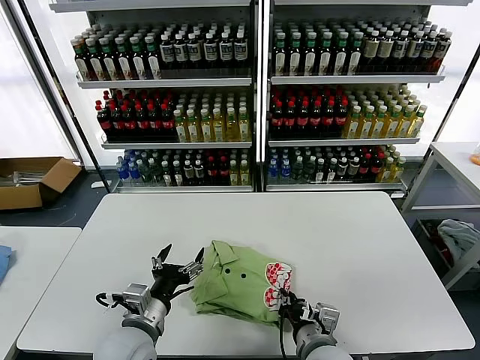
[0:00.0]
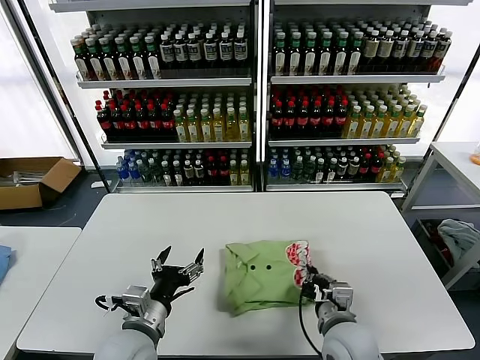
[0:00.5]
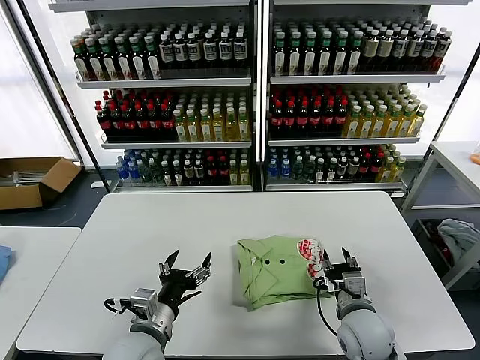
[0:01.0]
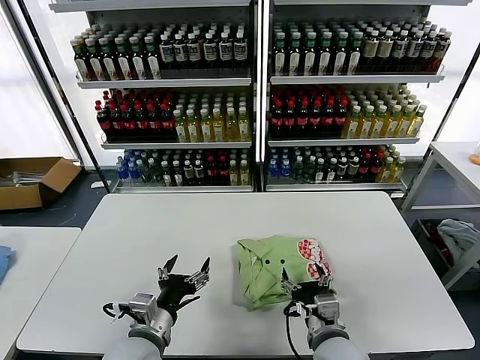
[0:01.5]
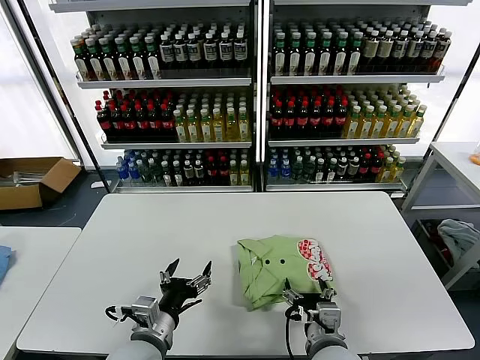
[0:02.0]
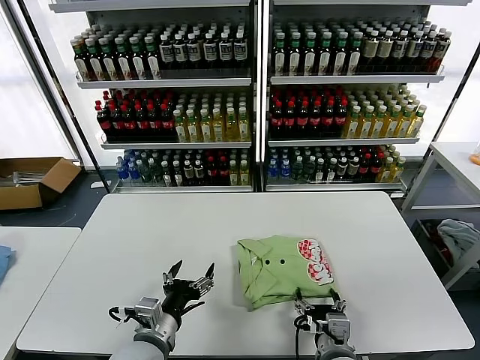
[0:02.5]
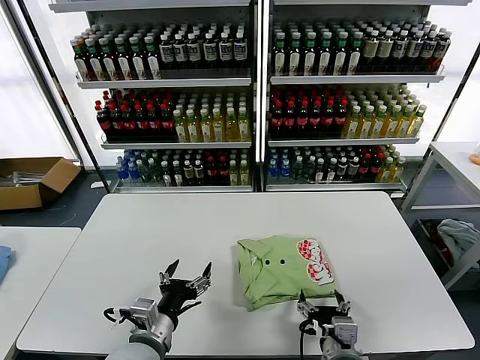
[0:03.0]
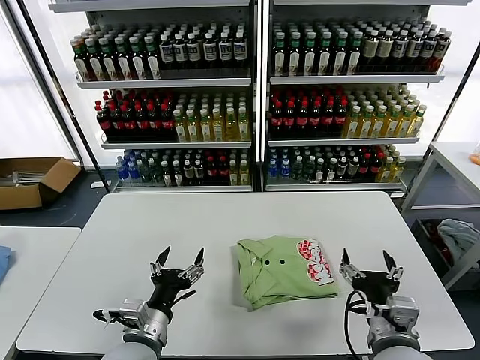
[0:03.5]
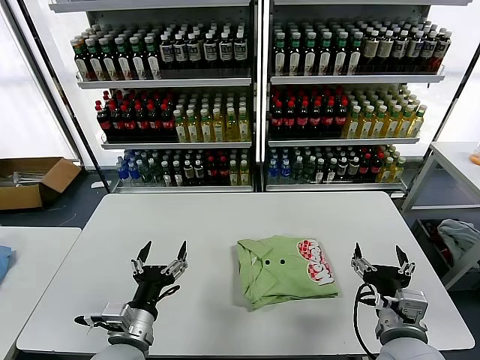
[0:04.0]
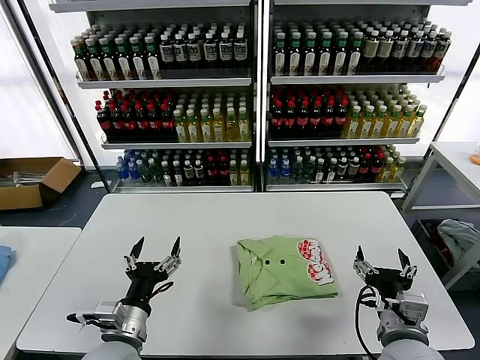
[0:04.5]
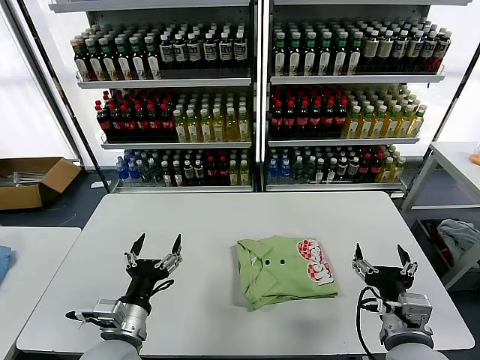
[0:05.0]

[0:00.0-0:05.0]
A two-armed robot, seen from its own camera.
Task of the whole recording: fold and organize the clothes.
Step, 0:00.0 to 0:02.5: Drag the clothes to the center of the table.
0:00.0 to 0:02.5: The right gripper goes to the right and returns, some 10 cm each way, and opens its fingers.
0:02.5 to 0:05.0: The right gripper heads to the right and upward, covering some 10 cm.

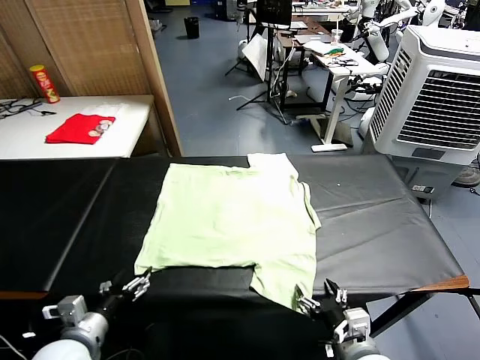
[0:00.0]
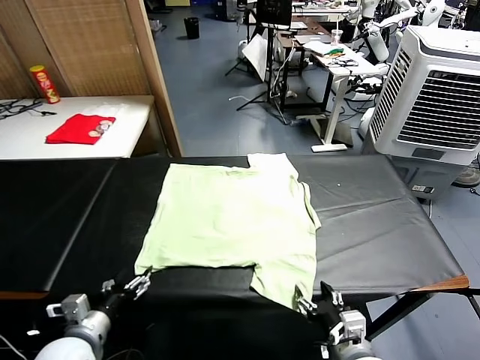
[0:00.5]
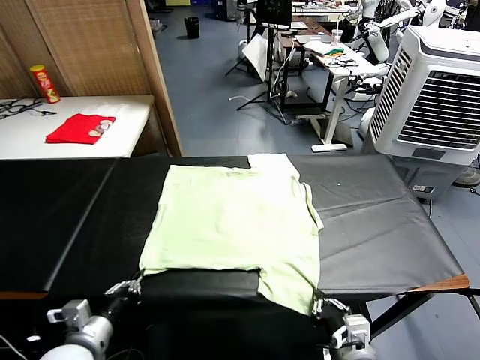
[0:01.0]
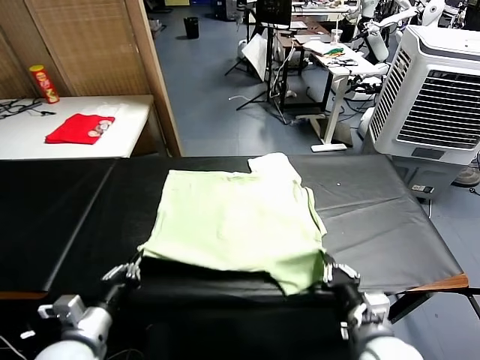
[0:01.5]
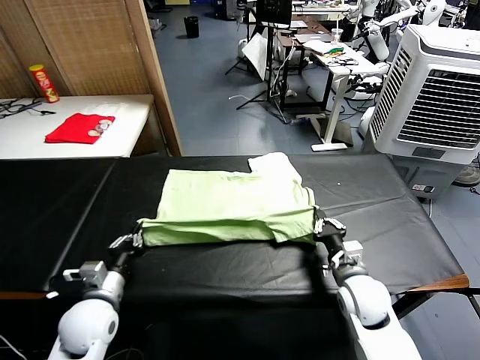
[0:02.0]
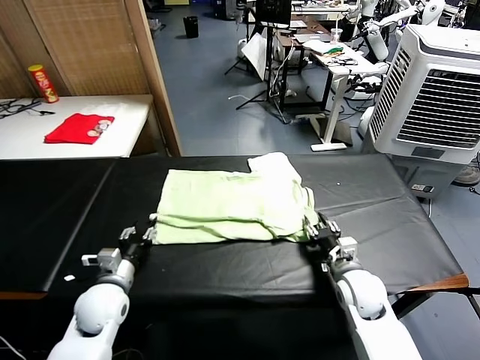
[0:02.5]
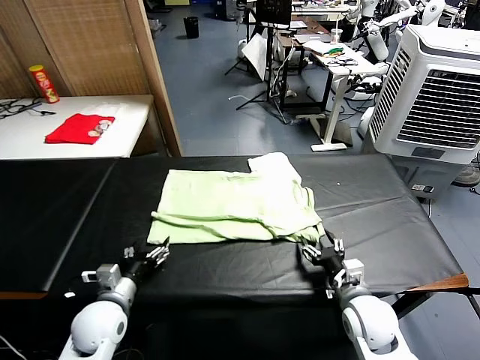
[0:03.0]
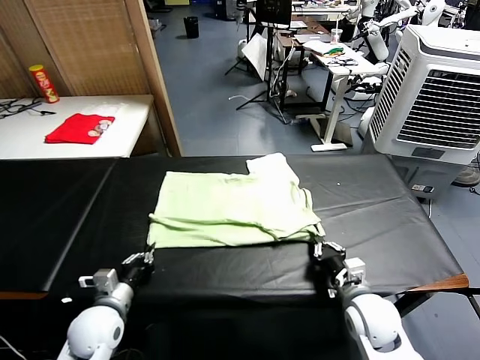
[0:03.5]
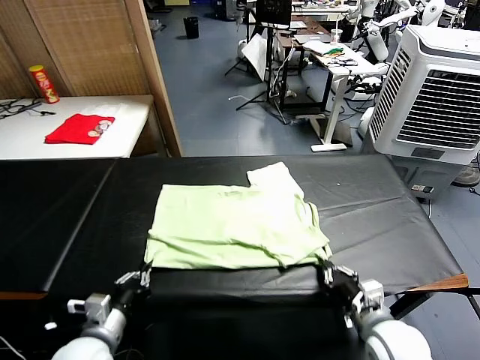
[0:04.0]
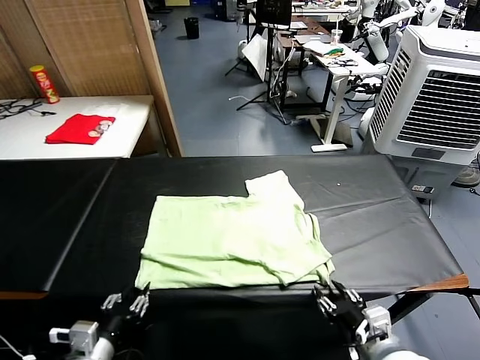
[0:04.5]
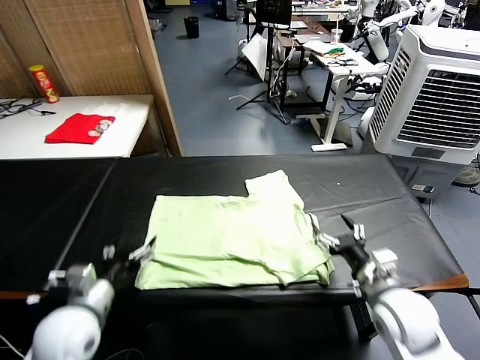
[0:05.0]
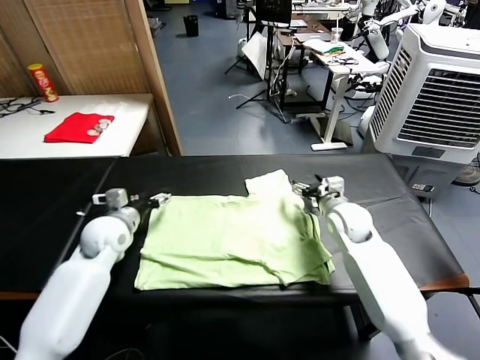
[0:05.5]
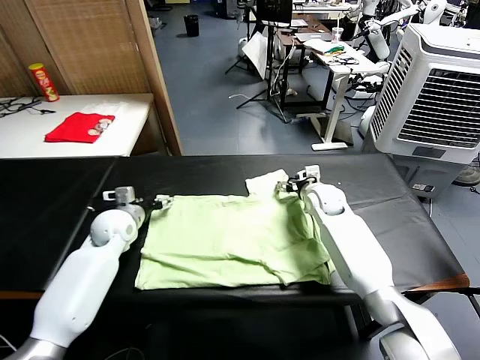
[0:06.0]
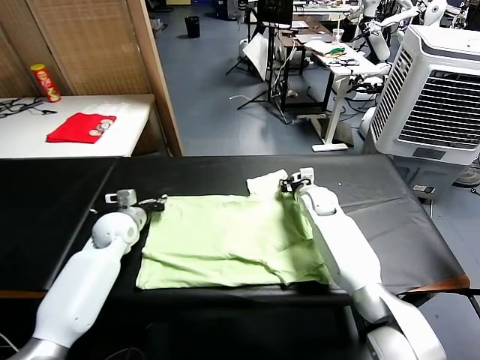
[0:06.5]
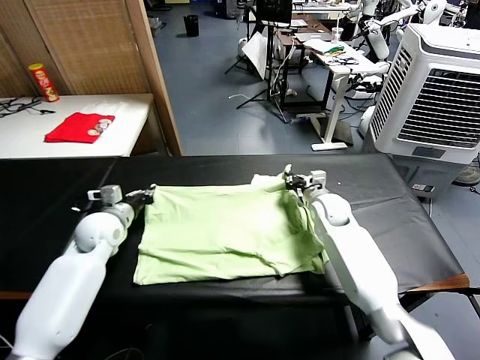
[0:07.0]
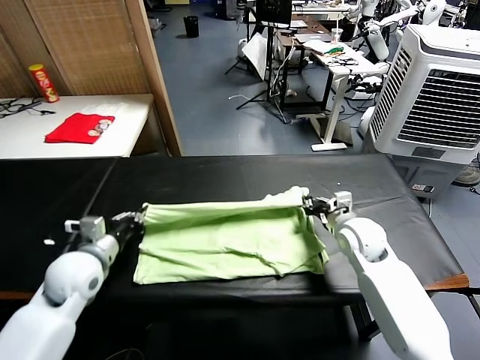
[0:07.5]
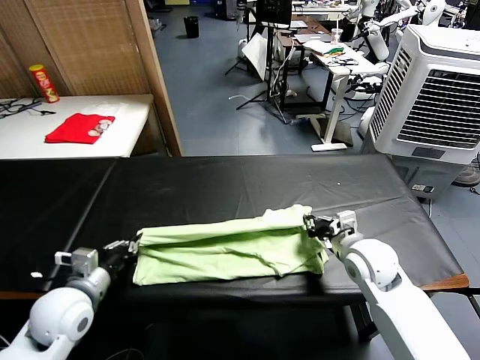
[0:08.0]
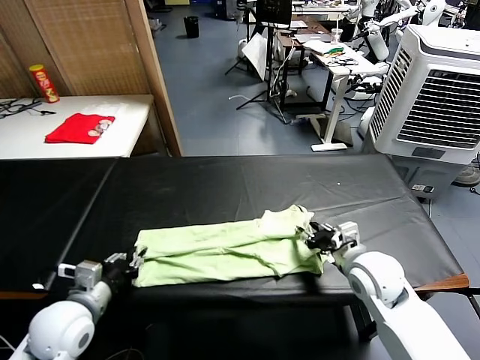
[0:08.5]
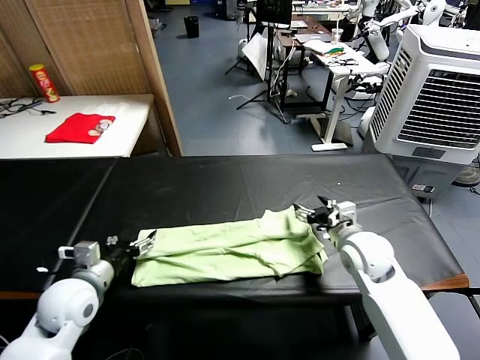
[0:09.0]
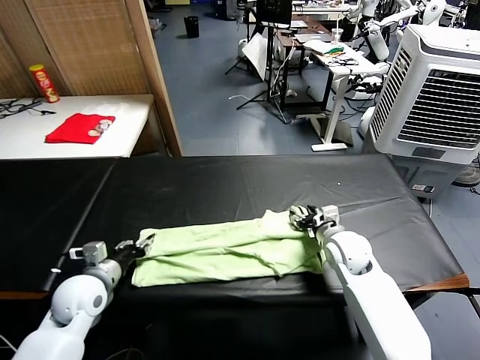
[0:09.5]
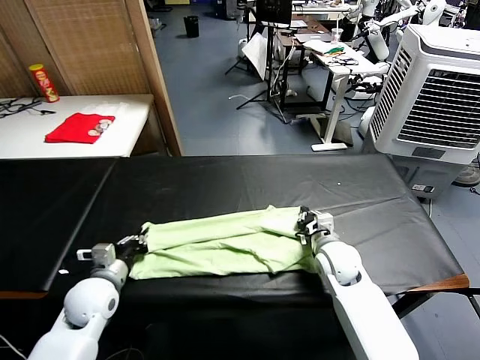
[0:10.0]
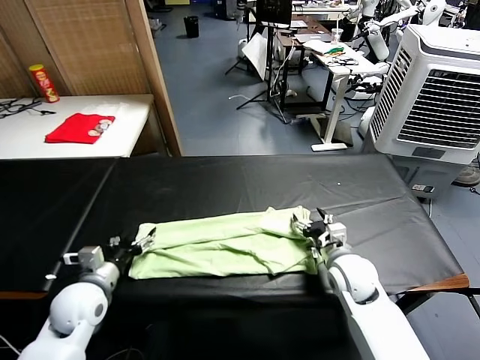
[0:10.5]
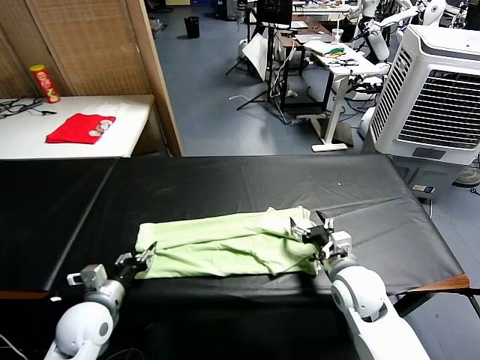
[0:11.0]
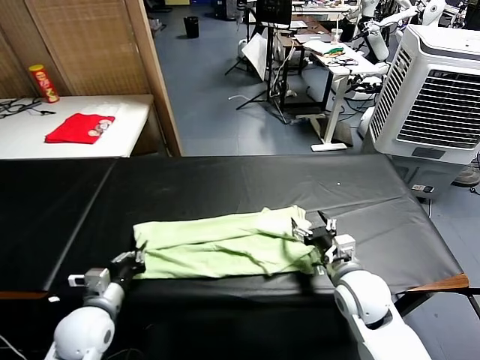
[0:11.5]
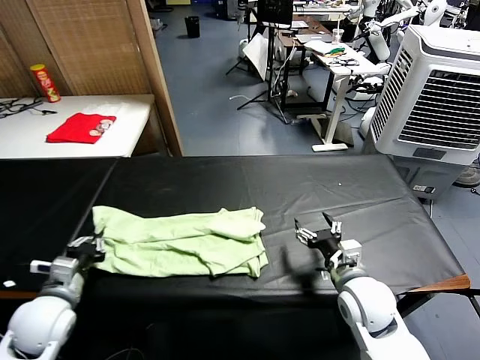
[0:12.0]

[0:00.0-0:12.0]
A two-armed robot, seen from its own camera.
Task of the whole recording: fold and organize the clothes.
Step, 0:00.0 to 0:01.0: use both grippers simultaneously to clamp the lower edge of the clothing fabric.
Step, 0:01.5 to 0:02.5: use both grippers to drag the lower edge of the fabric forward and fold it over the upper edge.
Step, 0:03.0 to 0:04.5: Drag the clothes downward with both gripper.
Step, 0:05.0 to 0:06.5: use both grippers simultaneously to clamp the upper edge of the clothing fabric.
Step, 0:07.0 to 0:08.5: use both grippers to drag the upper edge of the fabric backward and fold it over the lower edge.
Step, 0:09.0 to 0:11.0: use the left gripper to clamp the left edge of the fabric.
0:02.0 to 0:04.0: The right gripper travels backward by roughly 15 cm, and opens, then closes again; the left gripper goes some 10 cm backward, and opens, then closes again.
0:04.0 to 0:06.0: The two grippers go roughly 35 cm forward. The right gripper opens up, while the left gripper opens up.
0:06.0 to 0:08.0: Both grippers move backward, some 20 cm. The left gripper closes up. The right gripper closes up.
0:08.0 to 0:10.0: Both grippers move downward, about 5 cm. The right gripper opens, then closes again. Meanwhile the left gripper opens, then closes once more.
0:10.0 to 0:12.0: The right gripper travels backward by some 10 cm, and opens, while the left gripper travels backward by some 5 cm, and opens, then closes once more.

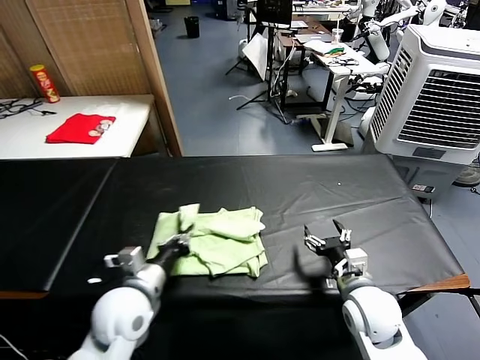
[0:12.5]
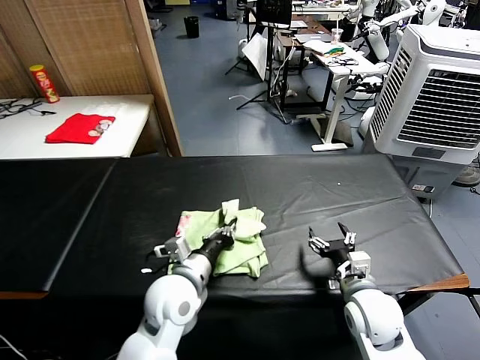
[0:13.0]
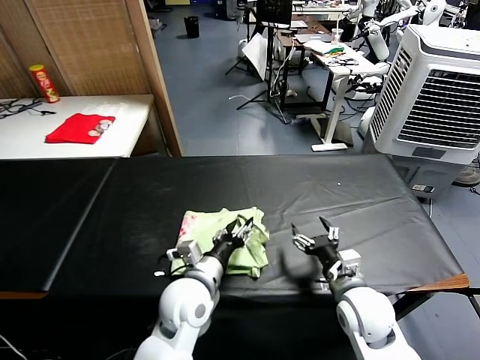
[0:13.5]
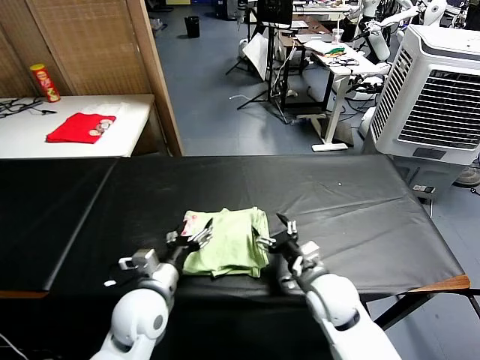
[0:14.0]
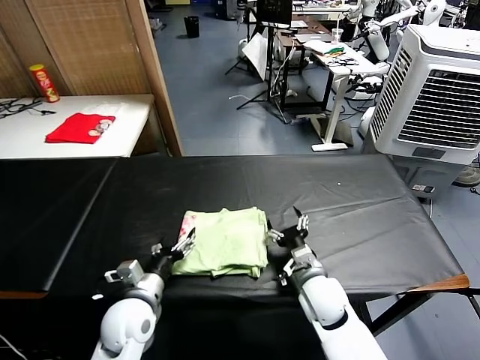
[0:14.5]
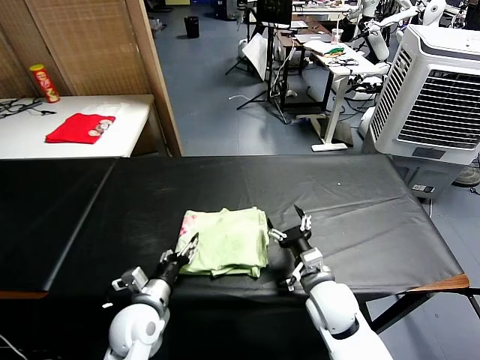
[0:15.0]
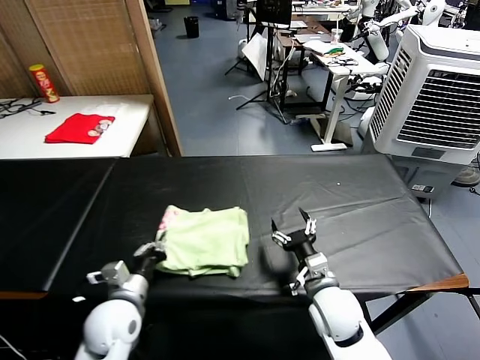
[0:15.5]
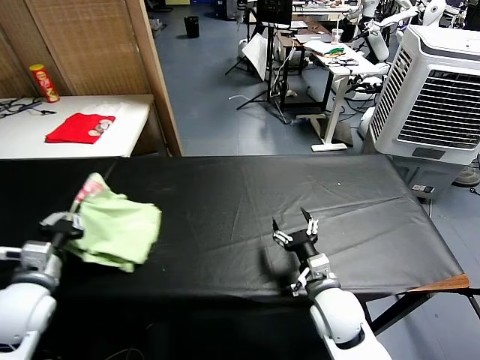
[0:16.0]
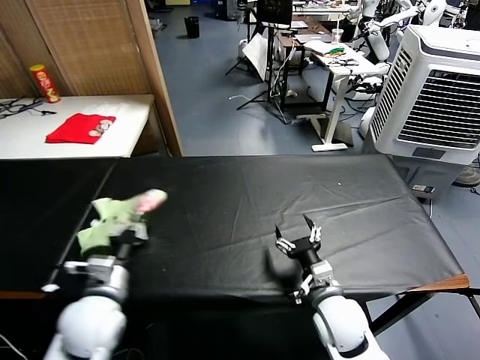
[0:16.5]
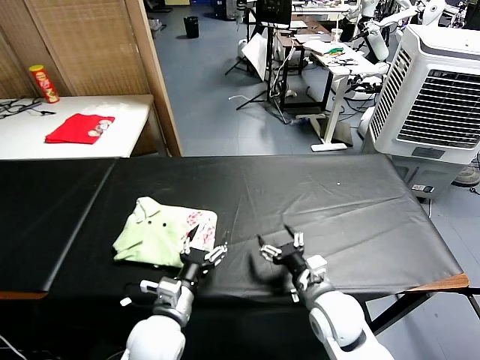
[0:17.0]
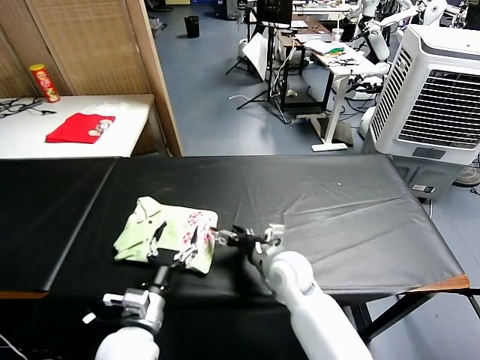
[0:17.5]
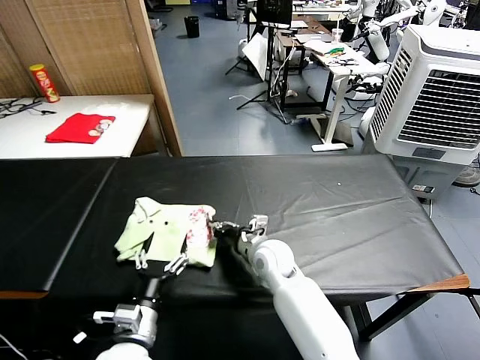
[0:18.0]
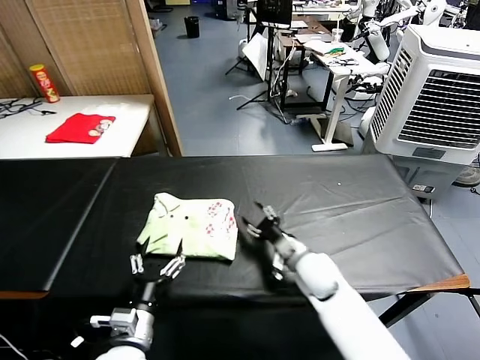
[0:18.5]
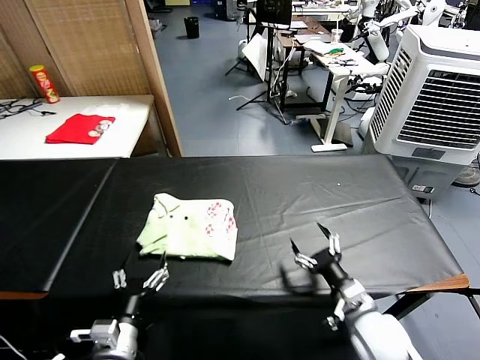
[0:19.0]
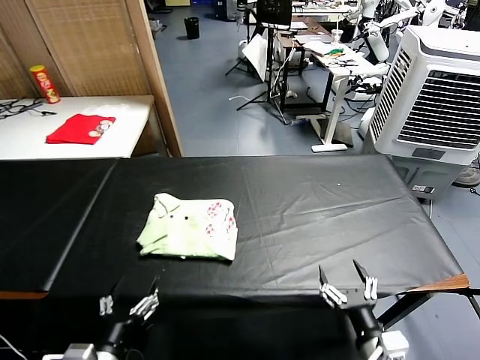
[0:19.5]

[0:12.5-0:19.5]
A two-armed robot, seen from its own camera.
Task of the whole recording: fold and organize the clothes.
Step, 0:14.0 to 0:16.5: Flip the folded clothes over with left gripper.
Step, 0:17.5 to 0:18.0: Drag the clothes to the center of the table.
0:12.5 to 0:14.5: The right gripper moves to the left, about 10 cm, while the left gripper goes approximately 5 cm downward, travels to the right and back again, some 10 cm each way, and opens up.
0:14.5 to 0:16.0: The left gripper travels to the left and upward by roughly 15 cm, and closes.
0:16.0 to 0:17.5: The left gripper travels to the right by approximately 20 cm, and opens. Meanwhile the right gripper moves forward and to the left, about 10 cm.
0:17.5 to 0:19.5: The right gripper goes roughly 25 cm backward and to the right, and closes, then opens again, while the left gripper travels backward and to the left by some 10 cm.
